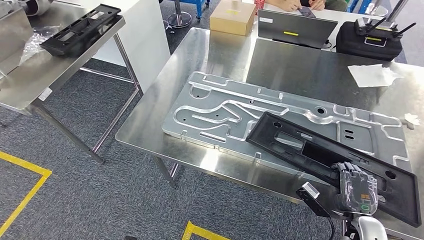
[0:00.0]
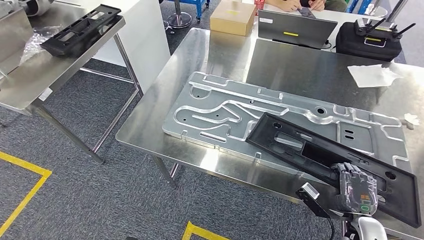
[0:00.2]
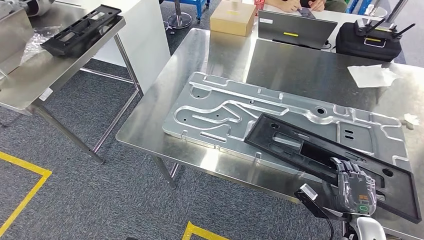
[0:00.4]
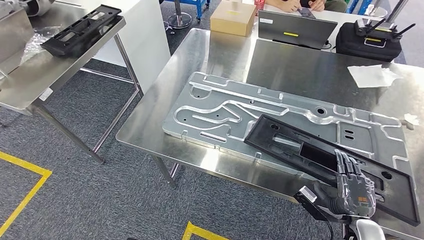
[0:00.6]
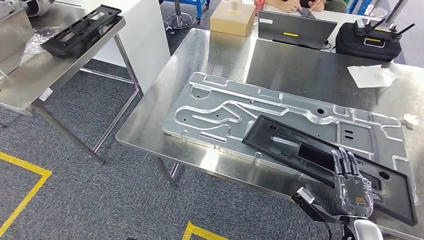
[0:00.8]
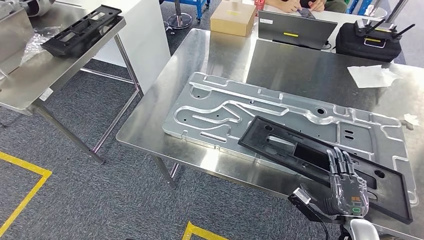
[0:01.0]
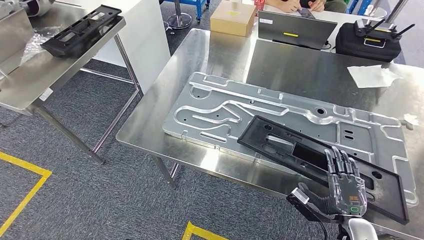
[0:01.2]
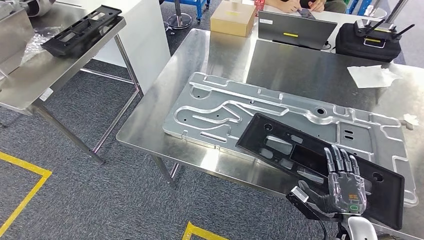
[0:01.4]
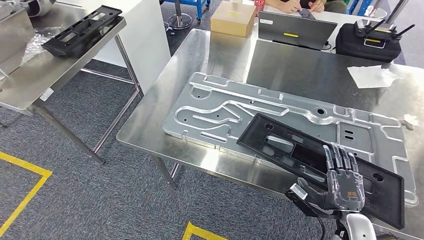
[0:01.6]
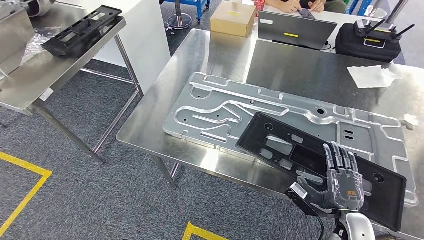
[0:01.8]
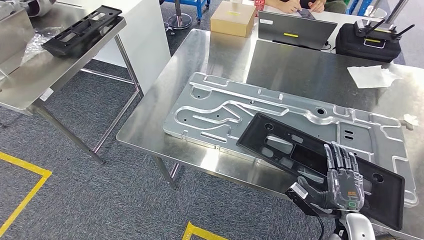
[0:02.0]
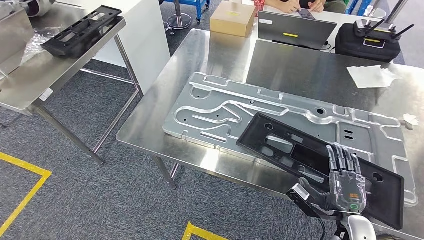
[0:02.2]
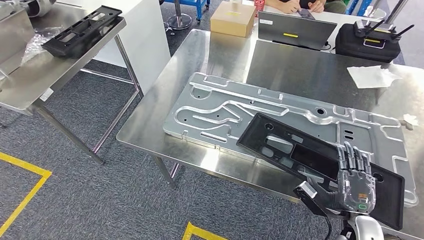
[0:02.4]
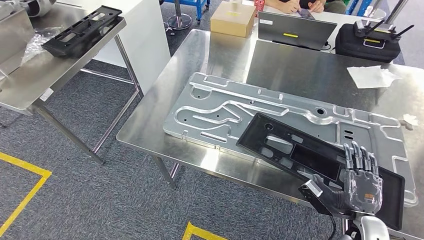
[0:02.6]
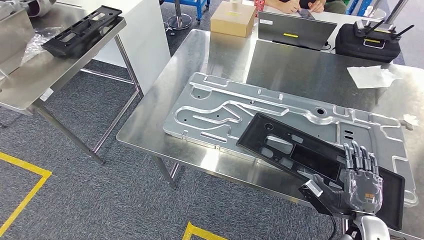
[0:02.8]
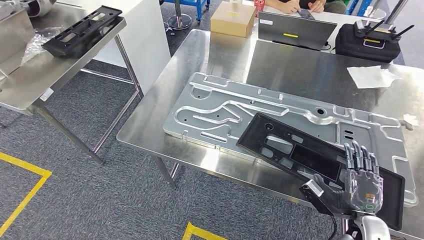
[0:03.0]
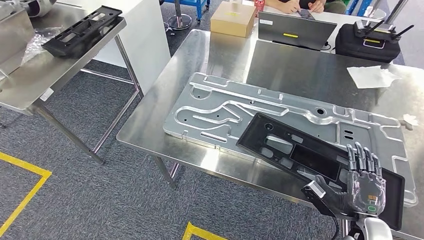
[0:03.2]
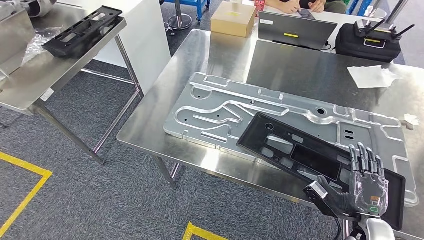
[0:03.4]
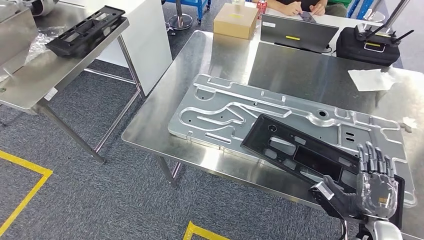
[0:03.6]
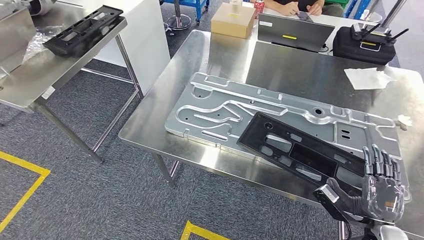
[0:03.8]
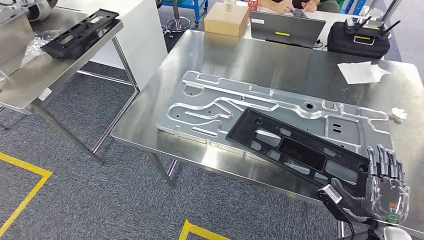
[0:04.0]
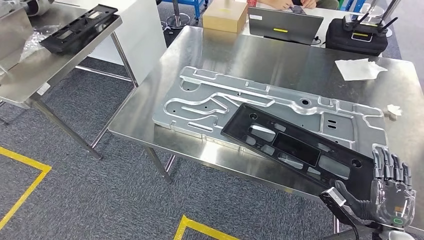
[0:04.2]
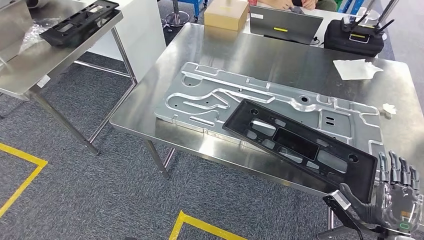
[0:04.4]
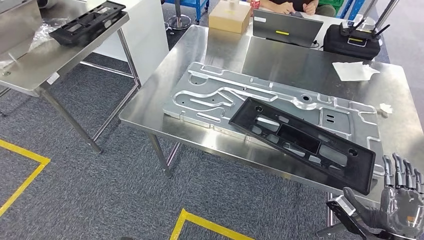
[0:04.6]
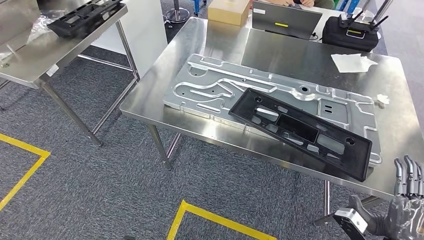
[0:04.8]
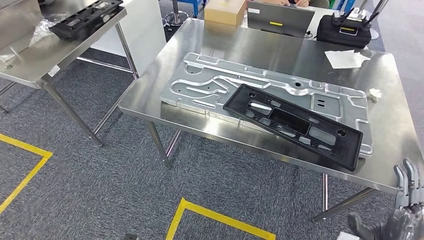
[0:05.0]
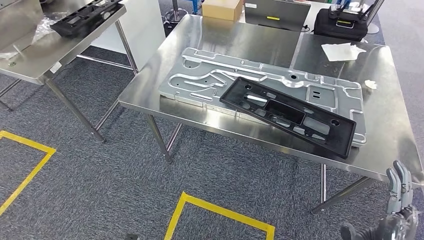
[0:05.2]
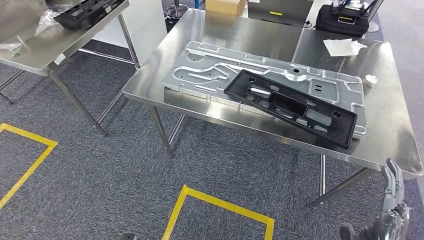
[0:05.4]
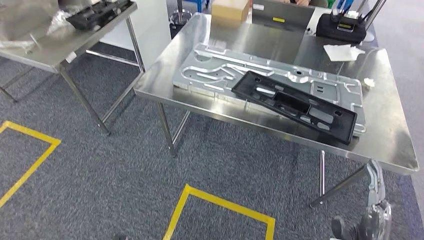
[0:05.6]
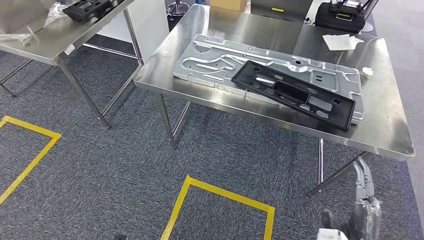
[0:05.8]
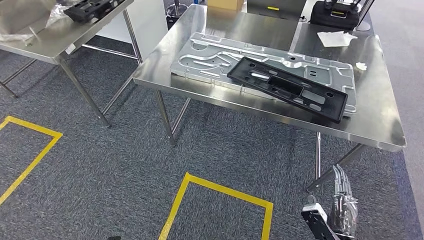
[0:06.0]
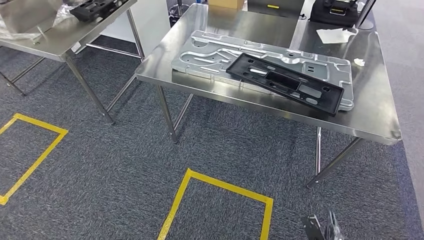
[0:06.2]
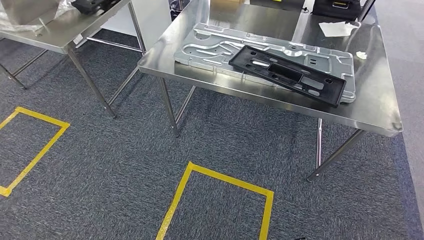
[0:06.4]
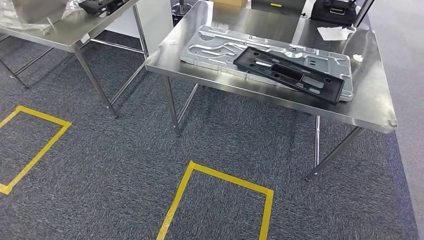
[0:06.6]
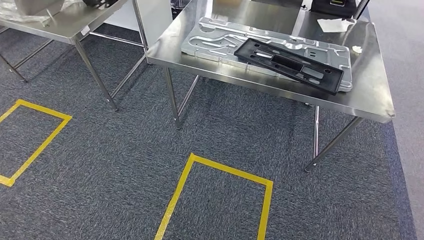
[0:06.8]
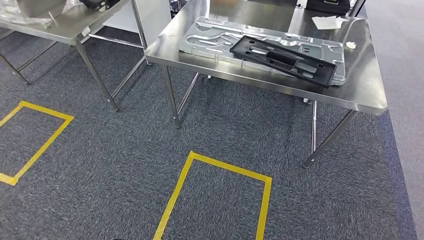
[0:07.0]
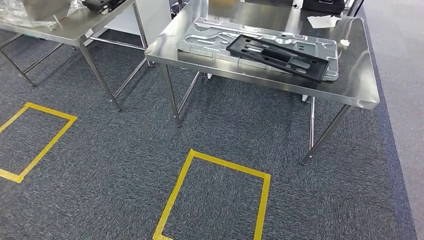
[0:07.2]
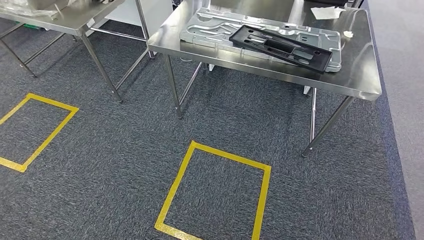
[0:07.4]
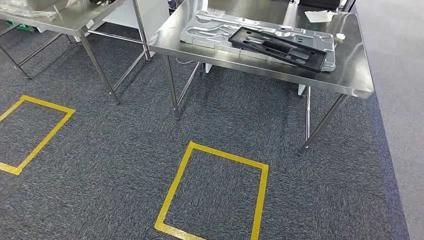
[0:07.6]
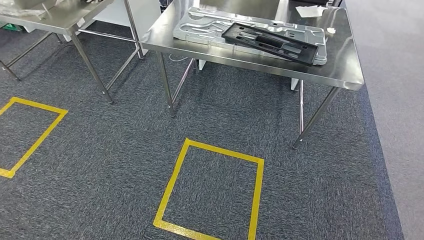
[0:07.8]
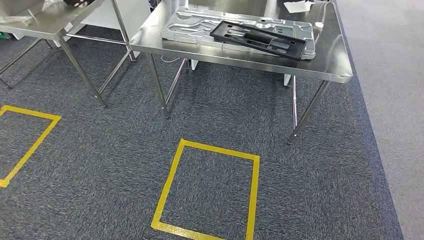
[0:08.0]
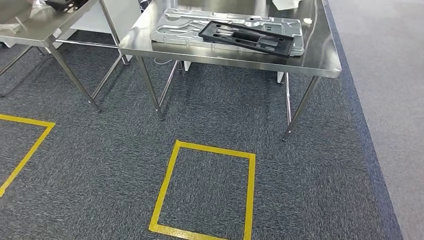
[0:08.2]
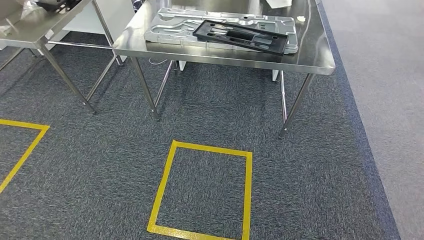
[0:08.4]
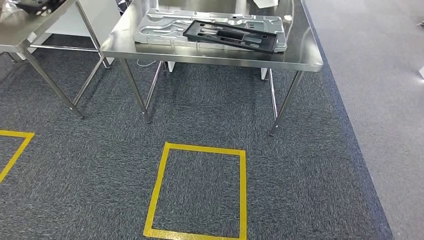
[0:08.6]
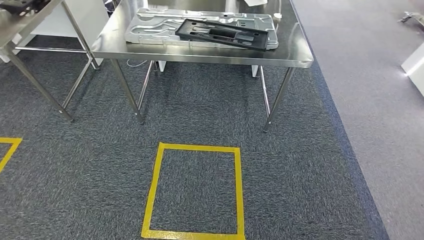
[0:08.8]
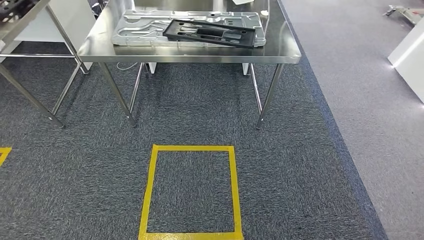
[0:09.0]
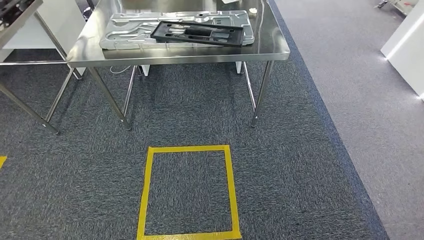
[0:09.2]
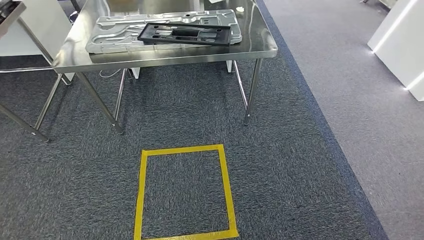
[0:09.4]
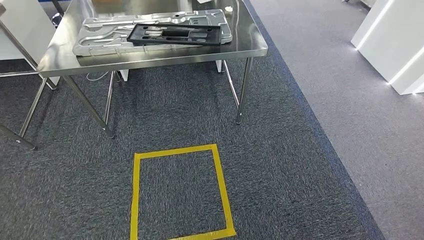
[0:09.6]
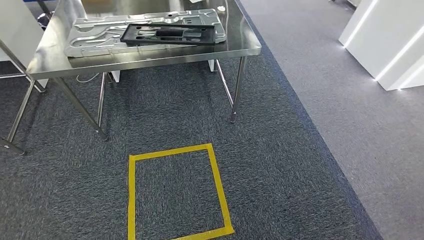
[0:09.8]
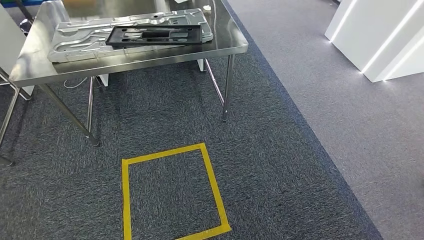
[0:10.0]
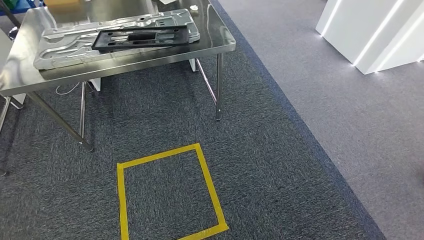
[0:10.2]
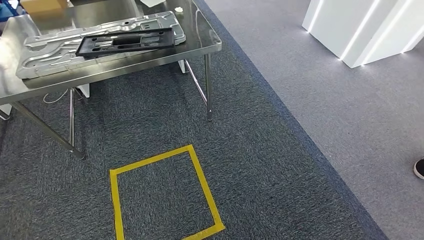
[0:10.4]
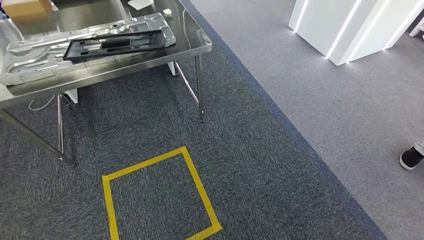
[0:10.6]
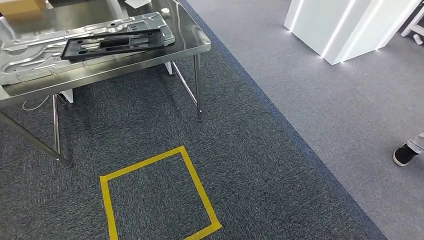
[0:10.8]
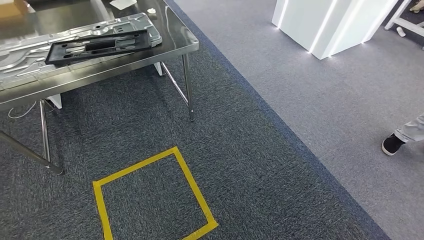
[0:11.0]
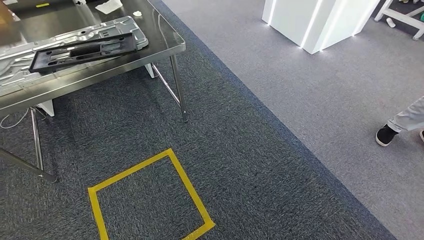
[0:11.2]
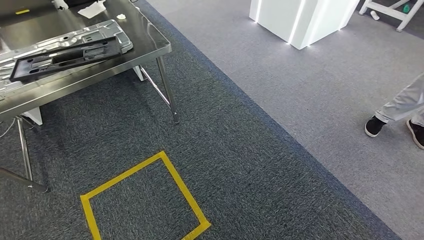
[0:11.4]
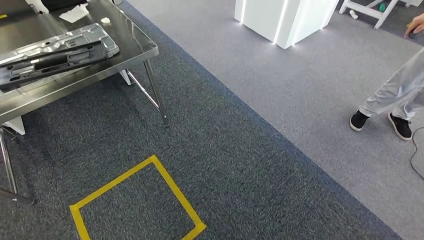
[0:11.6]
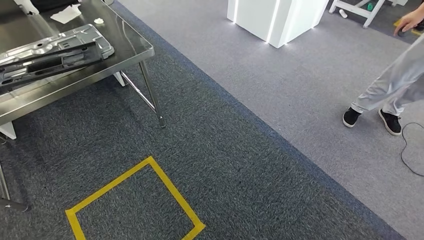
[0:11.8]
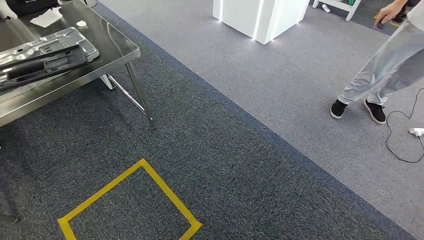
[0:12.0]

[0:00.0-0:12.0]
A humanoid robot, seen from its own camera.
Step, 0:00.0 to 0:05.8: Insert the large material into the corresponding slot on the workbench.
0:00.0 to 0:03.0: The hands make only small movements.

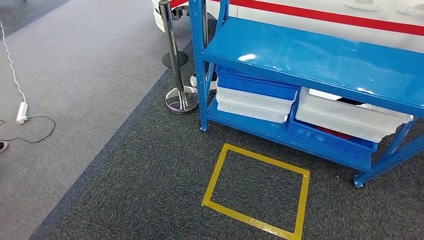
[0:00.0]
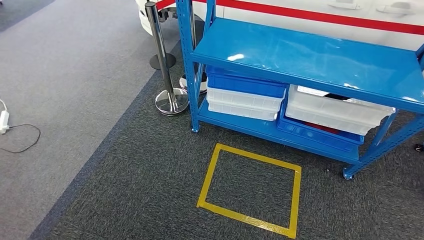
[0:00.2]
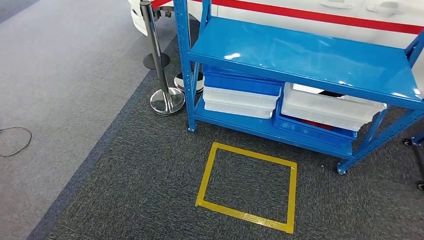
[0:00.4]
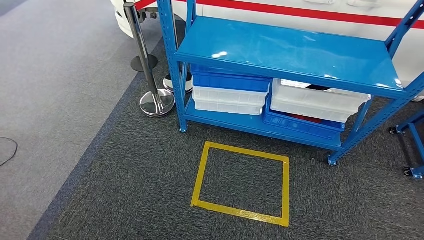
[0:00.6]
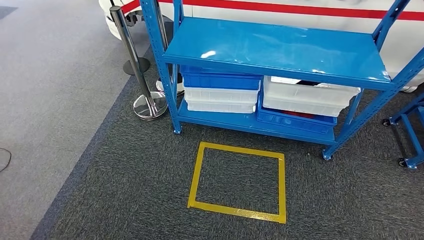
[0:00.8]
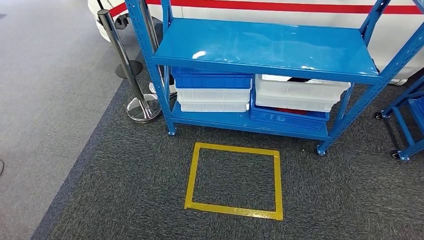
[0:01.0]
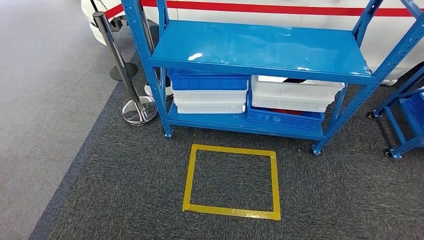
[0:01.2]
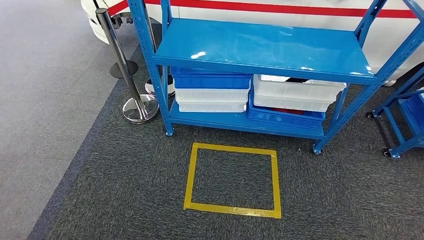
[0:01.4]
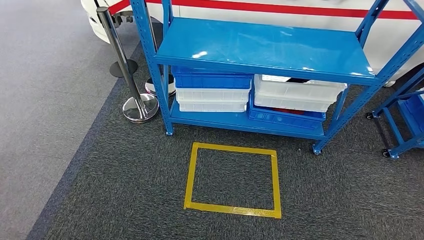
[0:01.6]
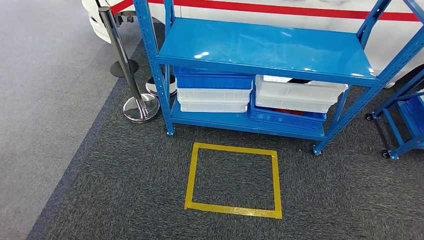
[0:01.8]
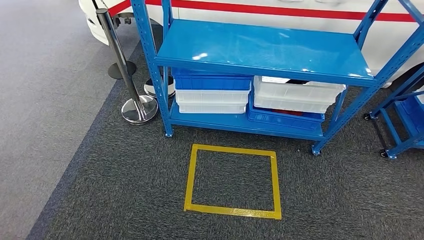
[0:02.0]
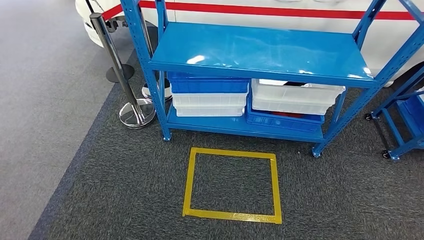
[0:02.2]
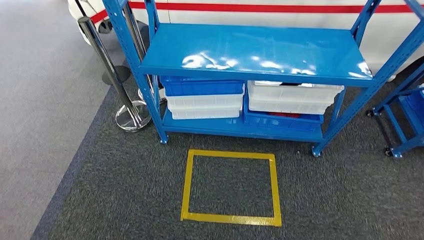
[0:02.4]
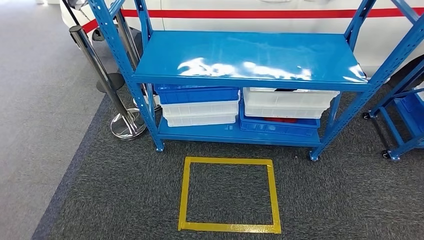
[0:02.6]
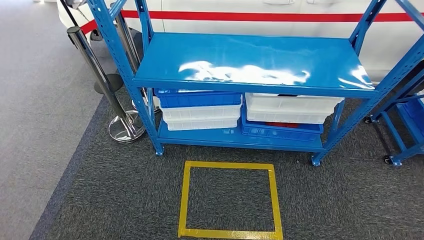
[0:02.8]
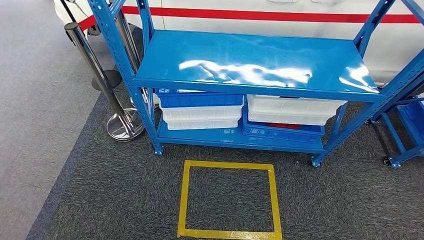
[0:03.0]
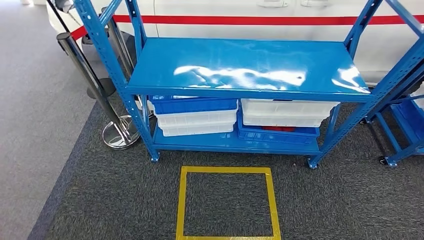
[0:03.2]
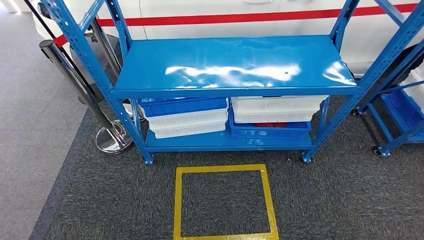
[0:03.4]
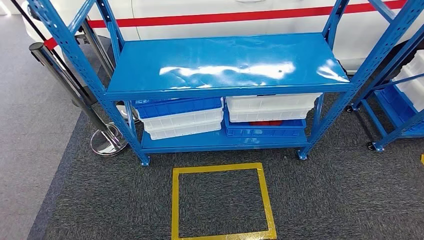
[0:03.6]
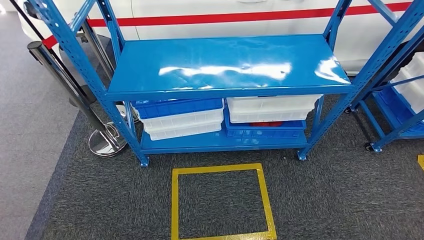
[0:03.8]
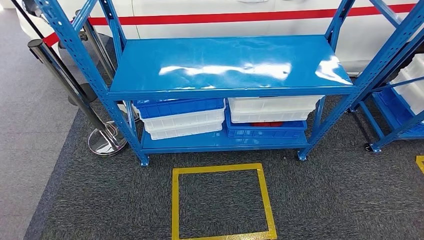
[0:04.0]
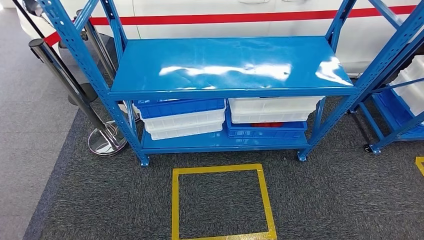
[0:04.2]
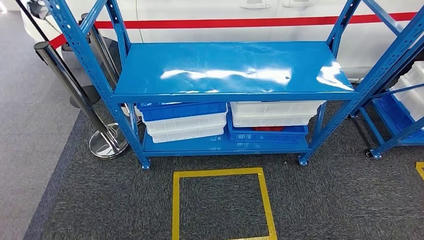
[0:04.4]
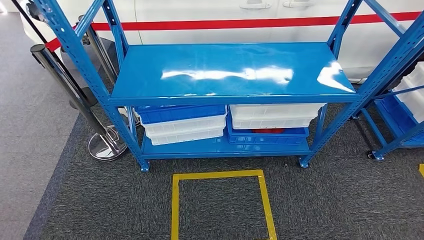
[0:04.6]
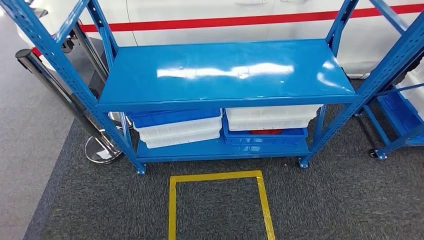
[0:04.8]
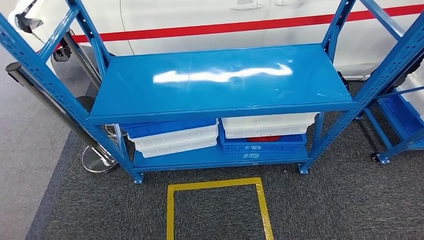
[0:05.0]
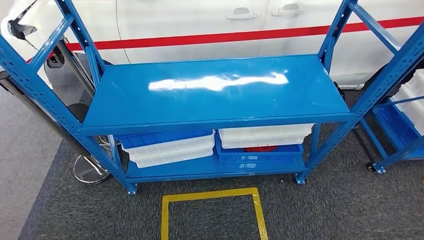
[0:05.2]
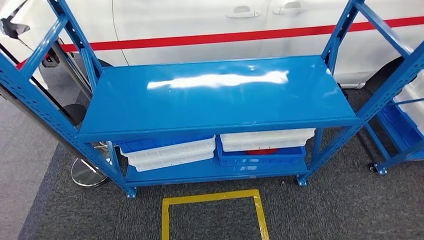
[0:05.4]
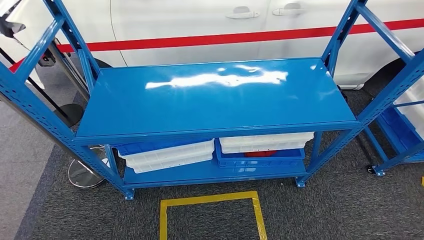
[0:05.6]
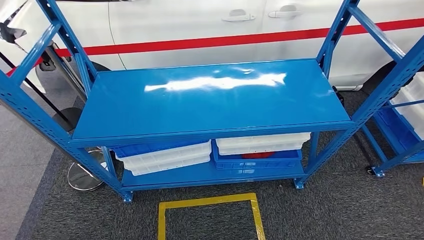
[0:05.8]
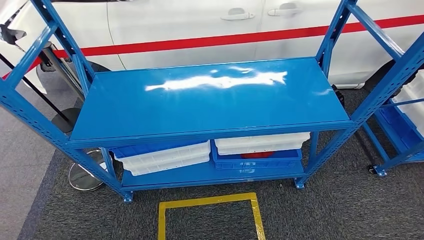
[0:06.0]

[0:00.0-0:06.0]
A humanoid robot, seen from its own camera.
Step, 0:00.0 to 0:05.8: Return to the initial position at the shelf.
